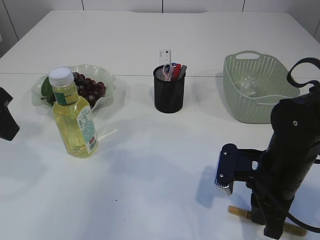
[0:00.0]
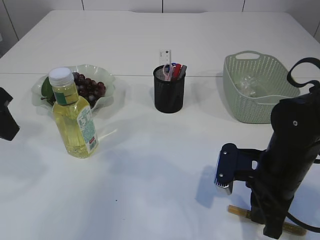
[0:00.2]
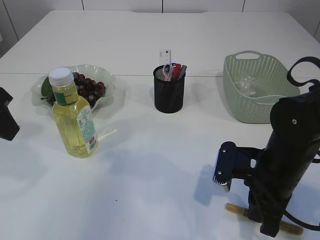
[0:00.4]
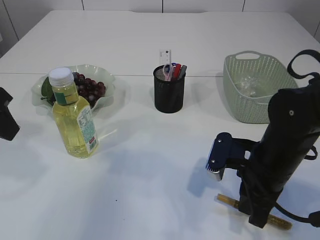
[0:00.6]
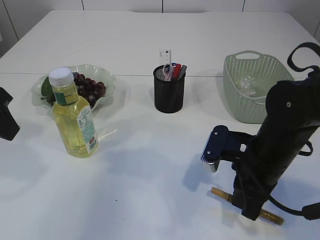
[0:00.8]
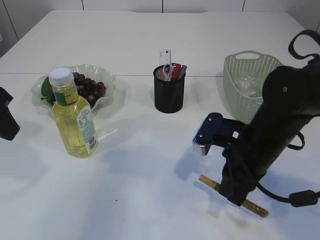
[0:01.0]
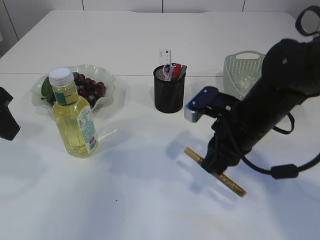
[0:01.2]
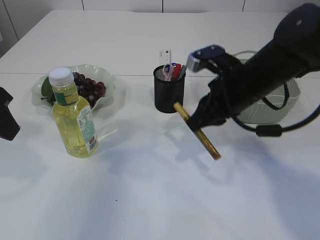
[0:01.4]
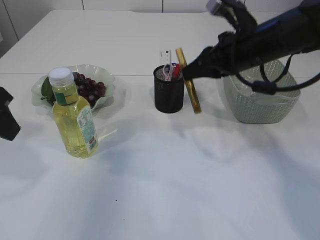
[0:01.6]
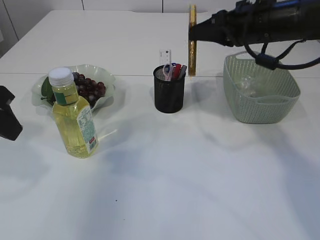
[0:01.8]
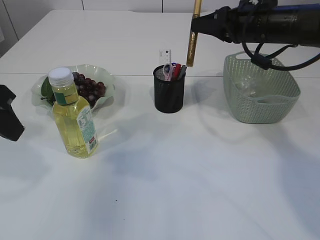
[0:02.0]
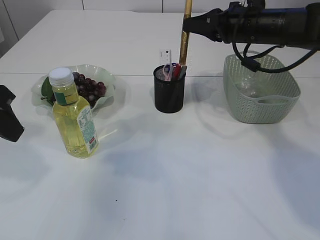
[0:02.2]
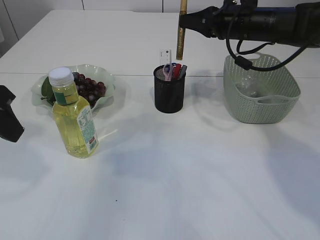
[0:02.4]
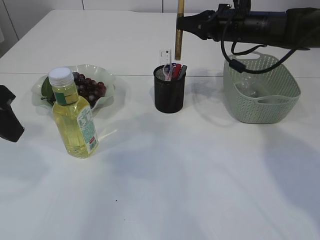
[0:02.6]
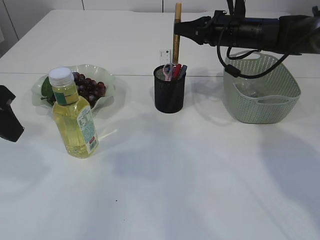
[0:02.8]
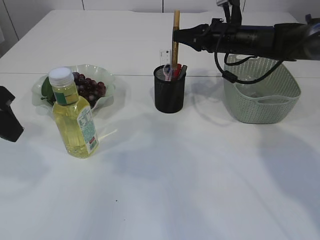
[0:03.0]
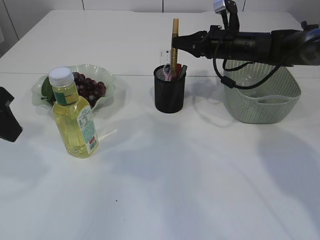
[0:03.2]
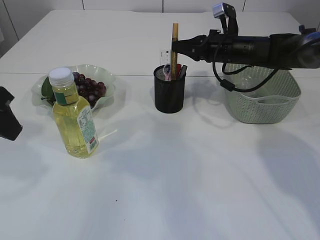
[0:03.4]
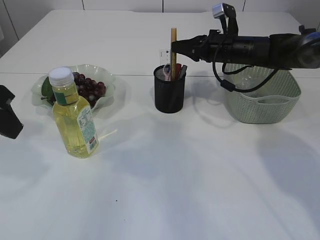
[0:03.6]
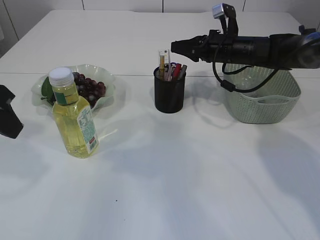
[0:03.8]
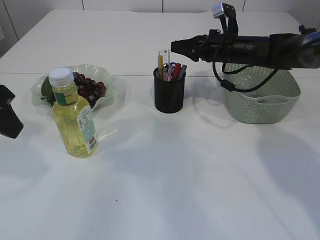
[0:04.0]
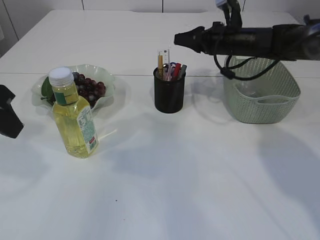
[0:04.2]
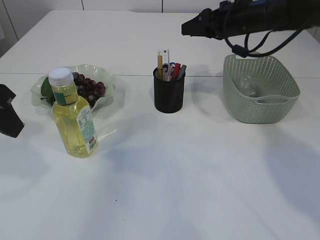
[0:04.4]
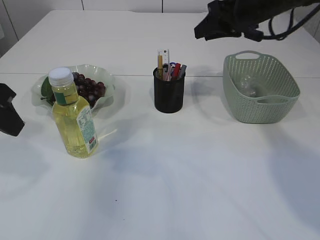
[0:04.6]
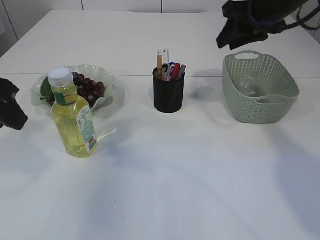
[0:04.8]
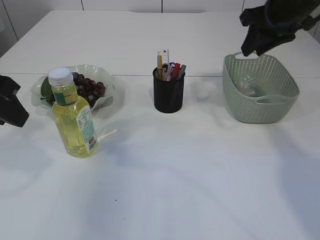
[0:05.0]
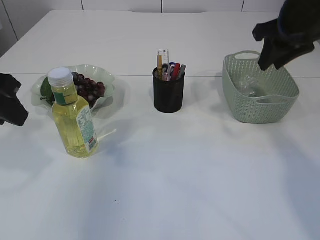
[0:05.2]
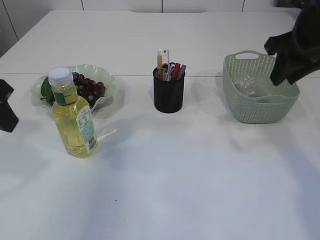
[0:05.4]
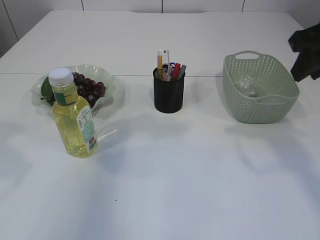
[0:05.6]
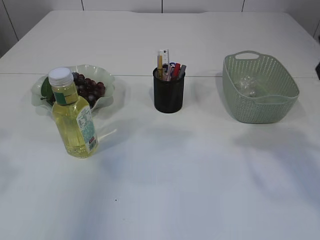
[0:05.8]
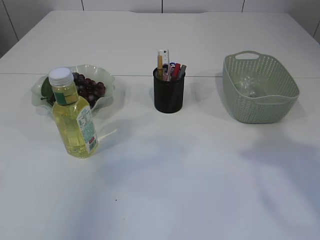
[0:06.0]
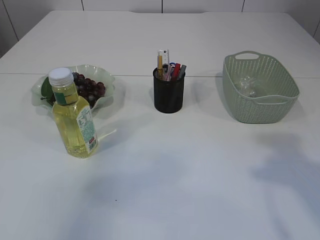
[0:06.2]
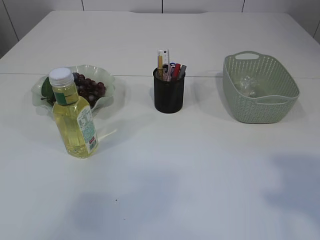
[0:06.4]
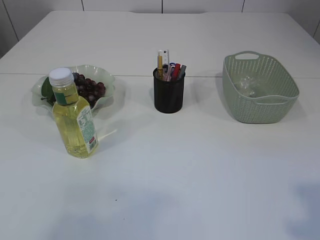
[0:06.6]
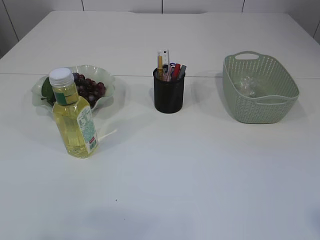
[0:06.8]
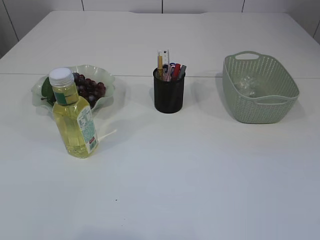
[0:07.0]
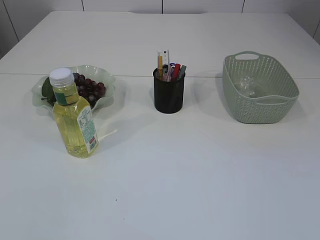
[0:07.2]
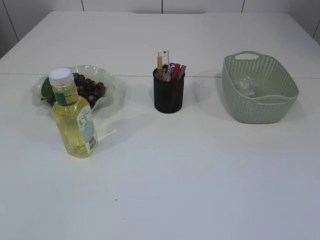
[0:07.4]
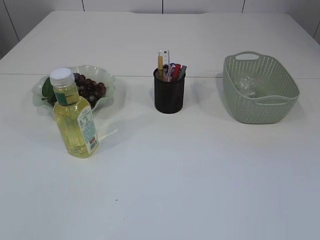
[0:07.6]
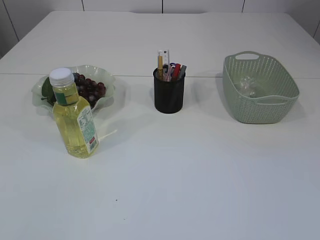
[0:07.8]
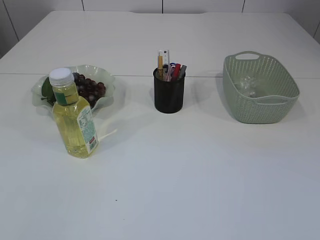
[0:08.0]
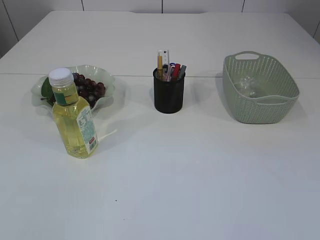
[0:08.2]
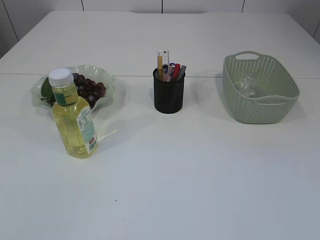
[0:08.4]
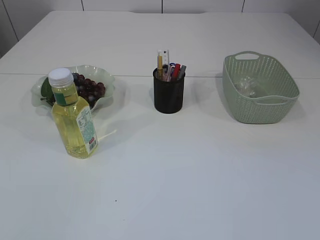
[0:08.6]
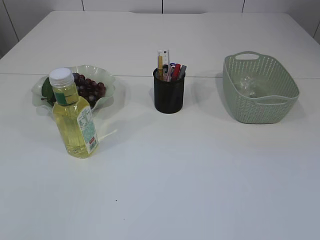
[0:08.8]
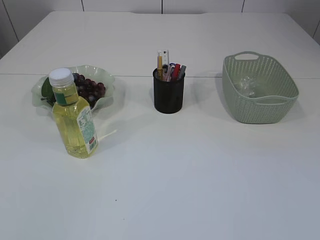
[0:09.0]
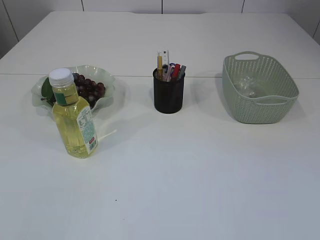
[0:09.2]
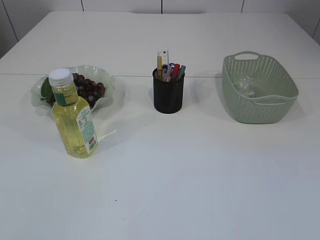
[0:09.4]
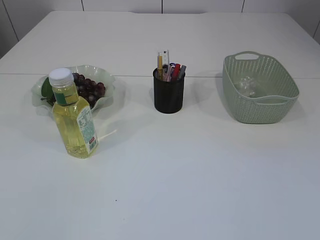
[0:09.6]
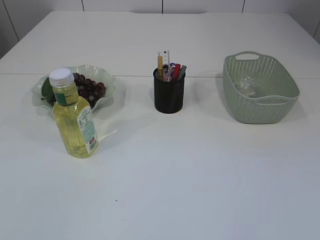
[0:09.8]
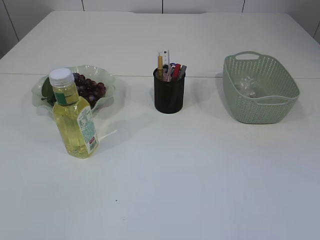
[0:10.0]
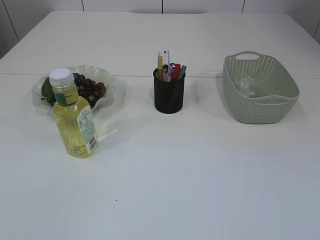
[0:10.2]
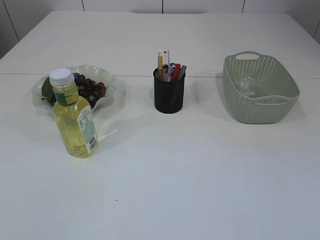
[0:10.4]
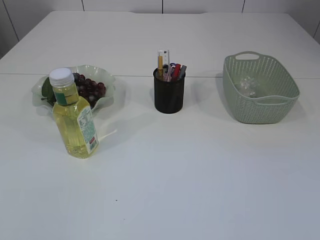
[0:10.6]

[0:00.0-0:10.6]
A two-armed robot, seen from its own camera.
Step, 0:01.2 to 0:04.4: place the yellow glue into the pen holder.
0:00.0 to 0:01.6: The right gripper is displaced upward and forward by about 20 cm.
0:01.6 to 0:03.0: The right gripper moves forward, approximately 15 cm.
0:03.0 to 0:04.6: The right gripper moves upward, some 10 cm, and opens its fingers.
0:04.6 to 0:06.0: The right gripper moves backward, approximately 25 cm; the left gripper shifts some 10 cm backward and upward.
0:06.0 to 0:07.6: The right gripper travels backward by about 25 cm, while the left gripper travels backward and downward by roughly 20 cm.
